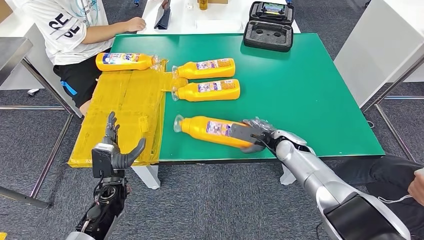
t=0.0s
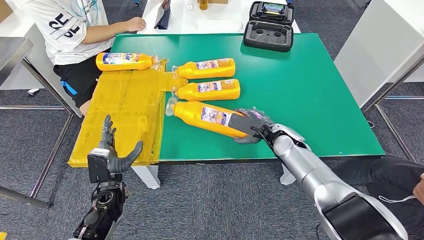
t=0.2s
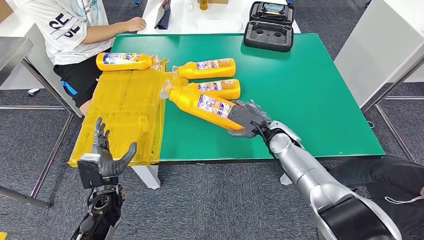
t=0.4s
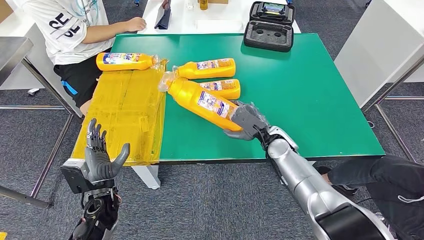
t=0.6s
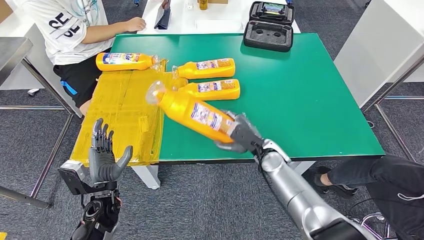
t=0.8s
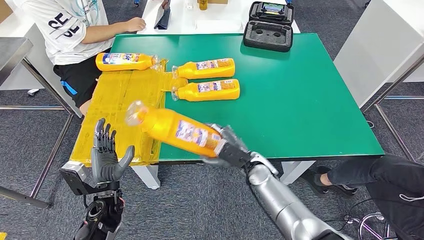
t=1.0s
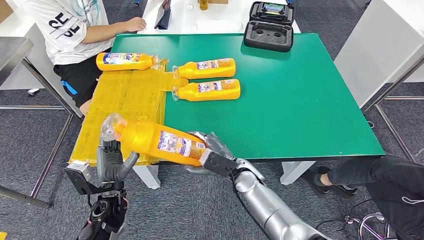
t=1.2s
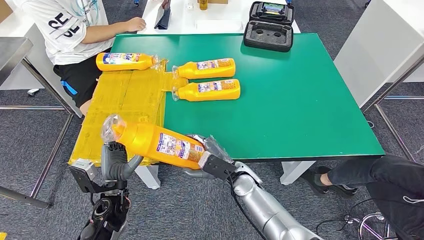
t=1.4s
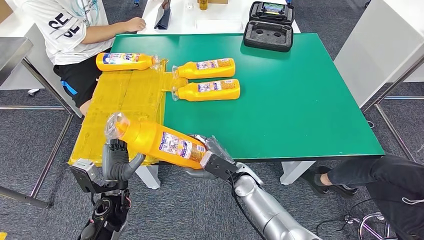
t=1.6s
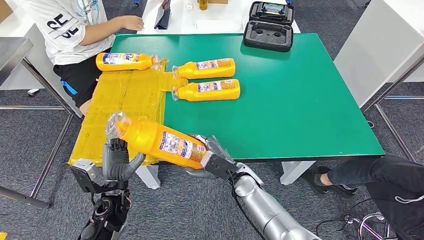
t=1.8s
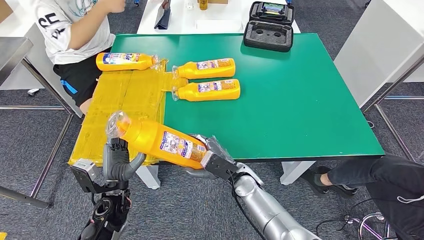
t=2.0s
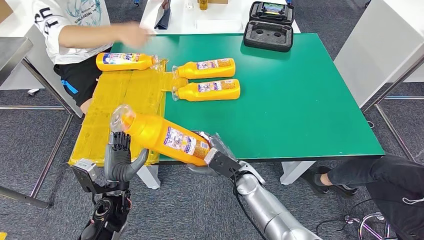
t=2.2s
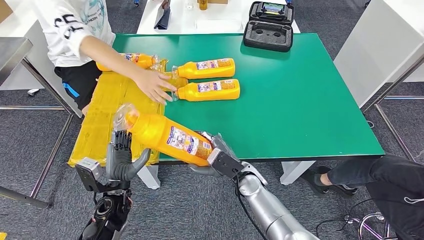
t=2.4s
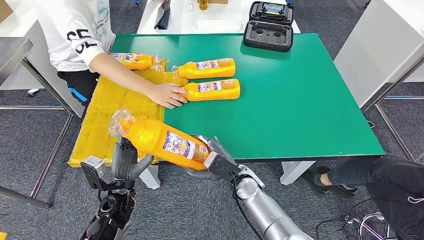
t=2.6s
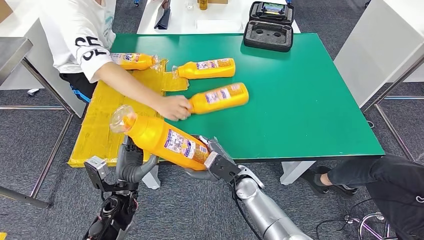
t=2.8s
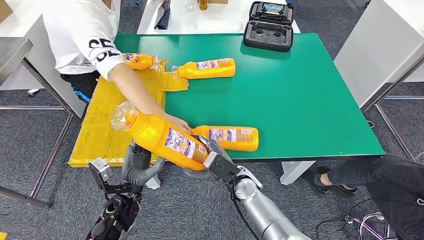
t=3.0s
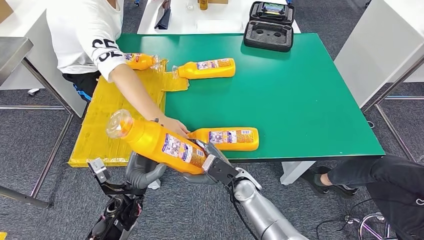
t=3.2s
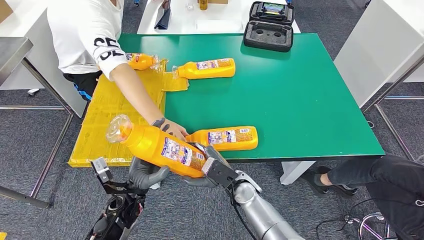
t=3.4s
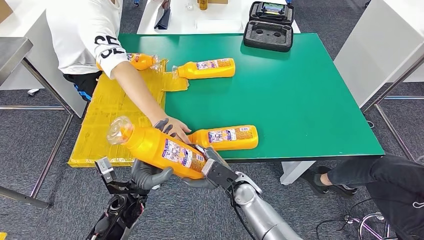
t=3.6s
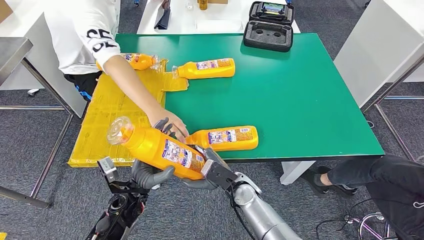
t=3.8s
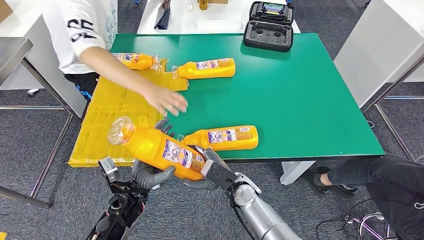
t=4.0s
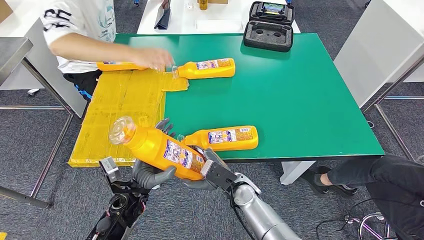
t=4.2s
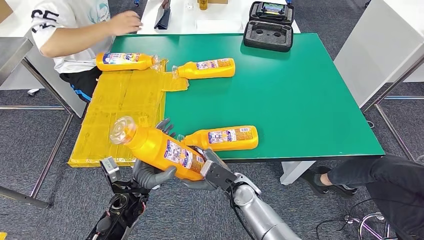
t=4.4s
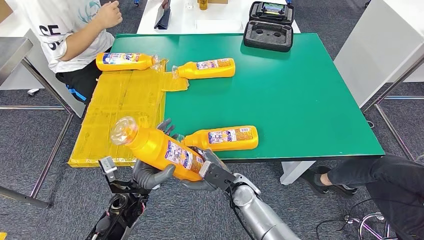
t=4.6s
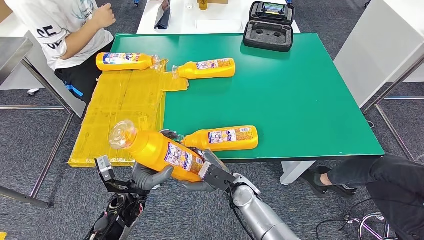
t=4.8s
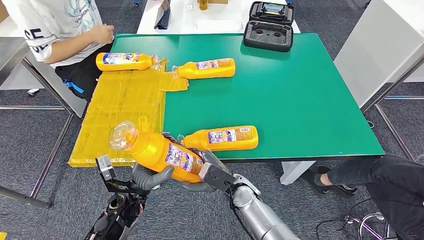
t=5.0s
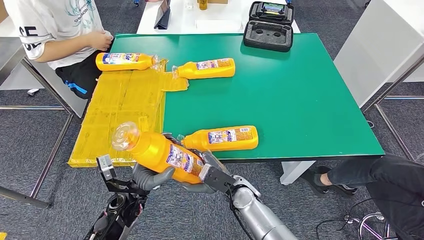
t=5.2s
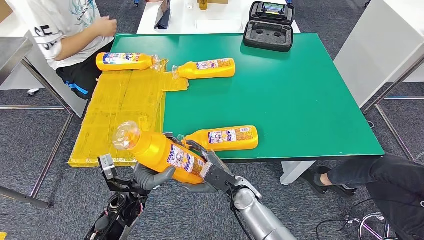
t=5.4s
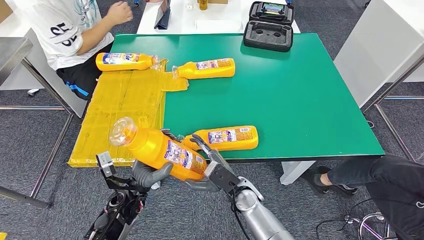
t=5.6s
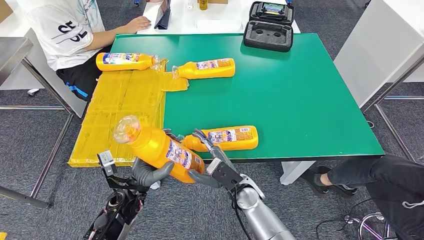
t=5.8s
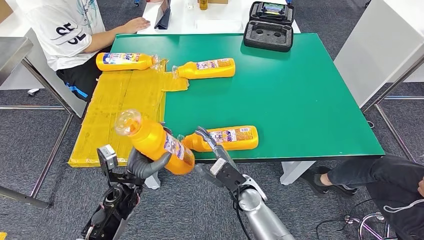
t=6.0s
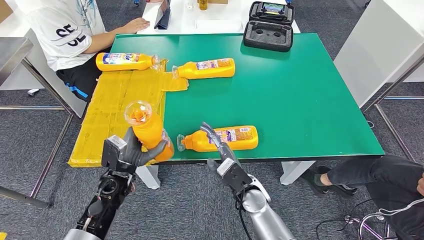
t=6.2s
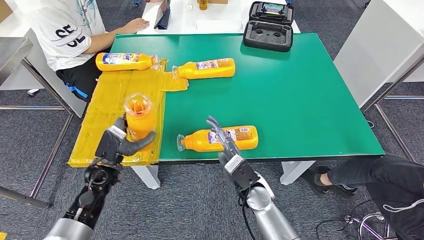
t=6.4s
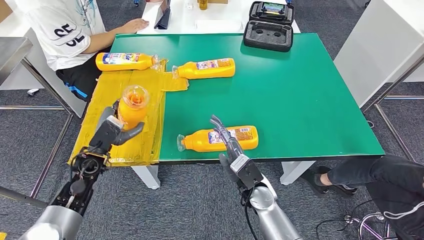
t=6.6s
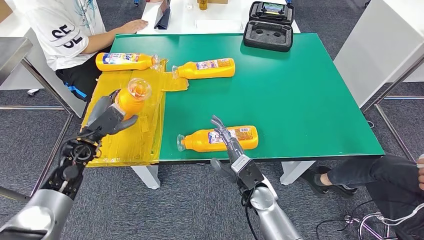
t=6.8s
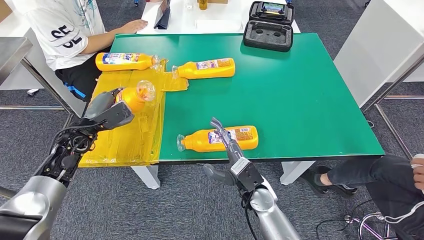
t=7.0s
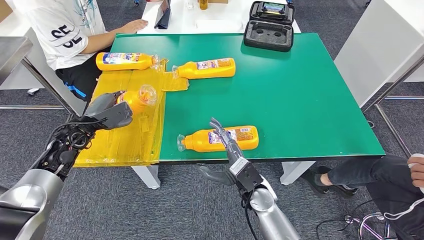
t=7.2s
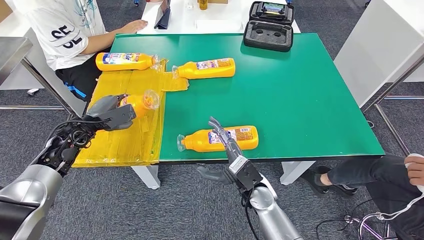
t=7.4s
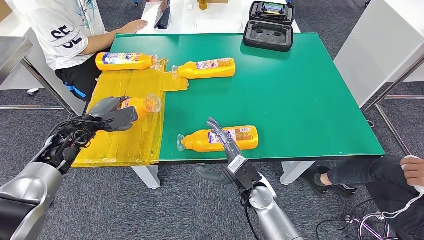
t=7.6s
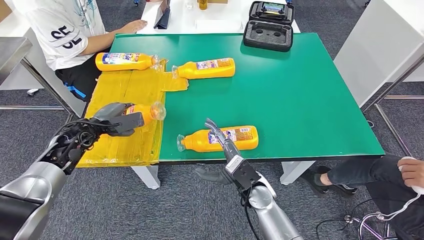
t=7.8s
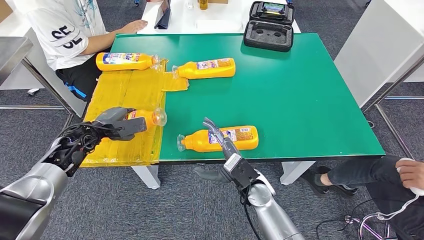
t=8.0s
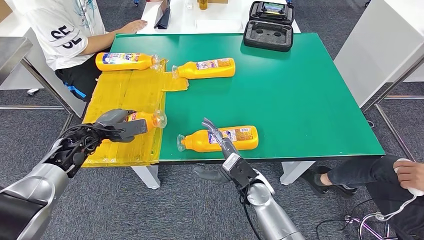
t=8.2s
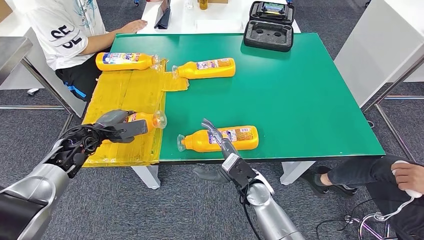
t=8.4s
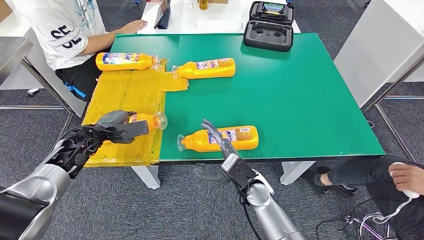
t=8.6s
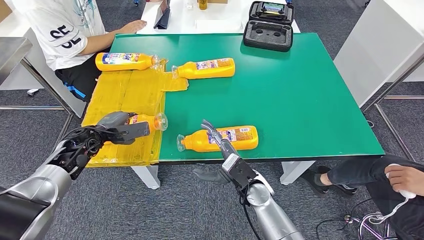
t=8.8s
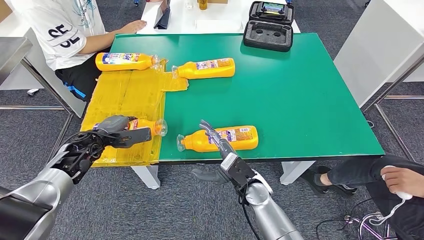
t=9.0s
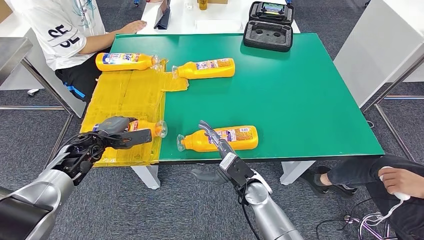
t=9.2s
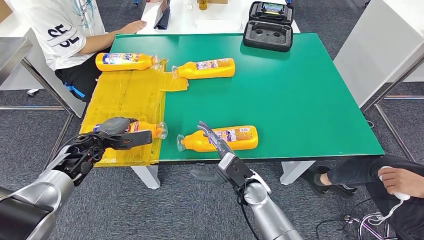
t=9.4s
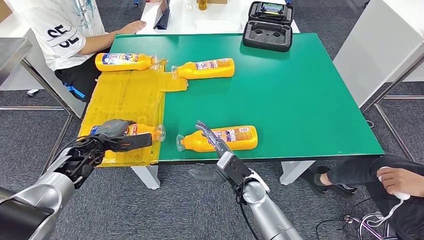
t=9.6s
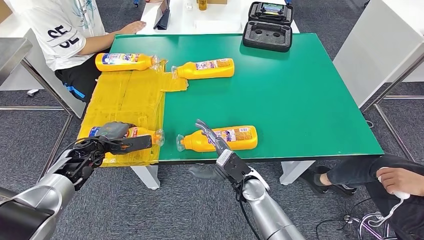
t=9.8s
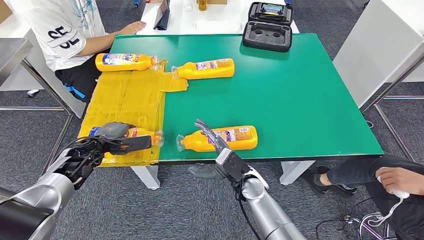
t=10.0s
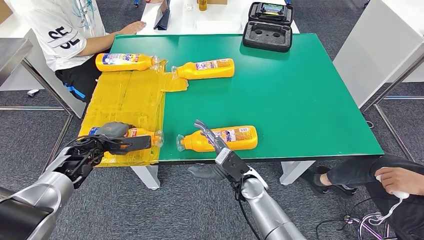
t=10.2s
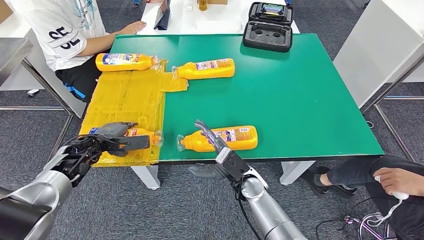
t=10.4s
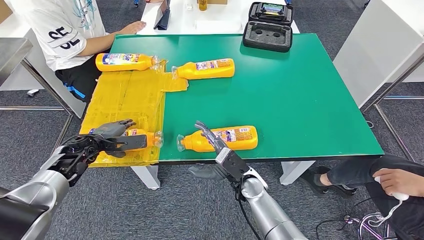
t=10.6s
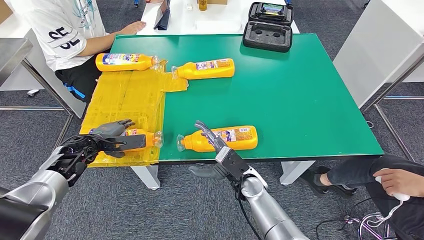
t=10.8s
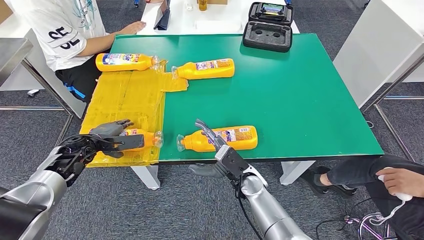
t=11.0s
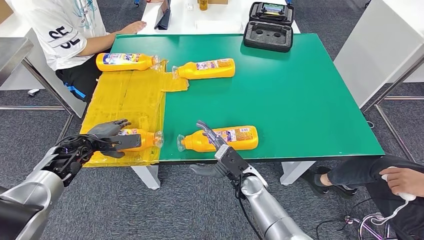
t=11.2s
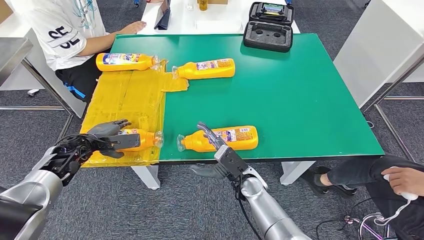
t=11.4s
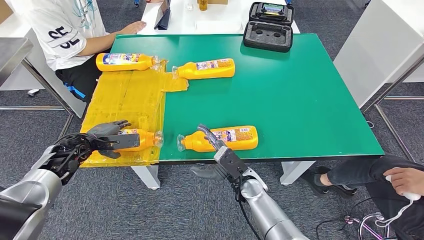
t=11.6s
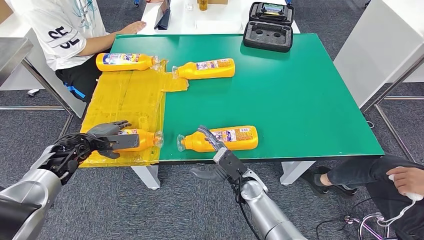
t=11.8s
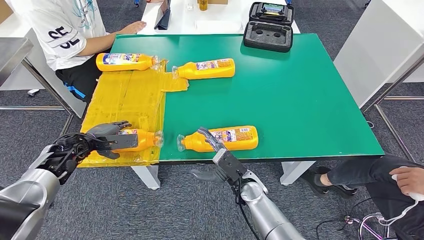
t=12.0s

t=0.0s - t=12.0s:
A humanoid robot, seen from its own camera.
Step, t=0.6s - t=10.6s: Flip the bottle to face forward.
t=0.0s - t=1.6s: The right hand moves to the left and backward, about 15 cm.
t=1.6s - t=3.0s: The hands stay close to where they were, moving slightly.
t=3.0s - t=4.4s: The hands make only small movements.
t=4.4s - t=6.0s: The hands make only small movements.
t=6.0s - t=7.6s: The left hand heads to the left, forward and upward, covering approximately 20 cm.
t=7.6s - t=9.0s: The hands move only a little.
t=9.0s - t=12.0s: The hands move only a little.

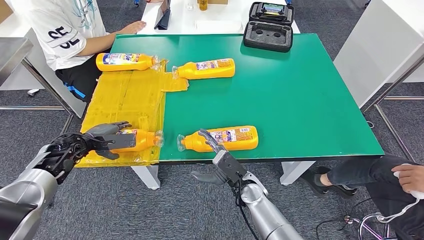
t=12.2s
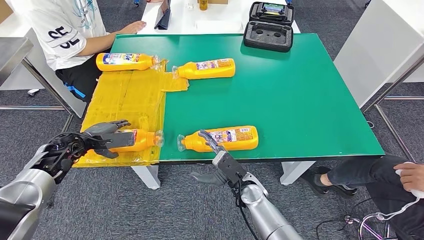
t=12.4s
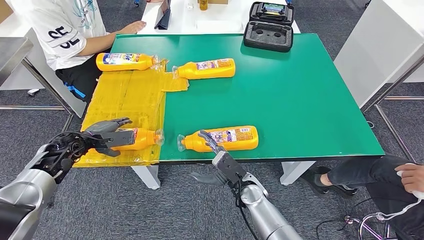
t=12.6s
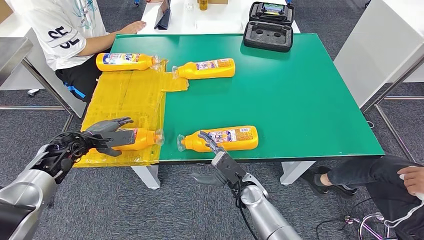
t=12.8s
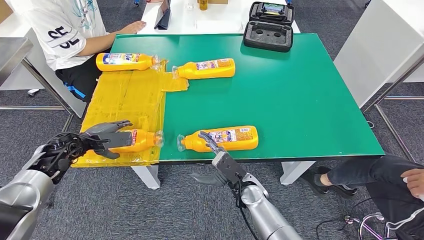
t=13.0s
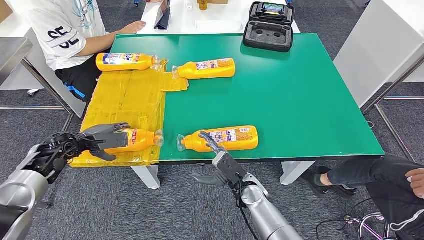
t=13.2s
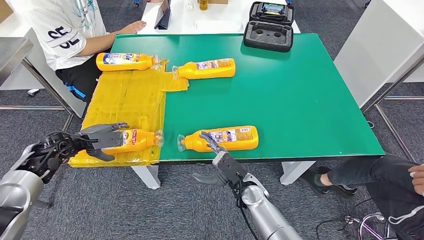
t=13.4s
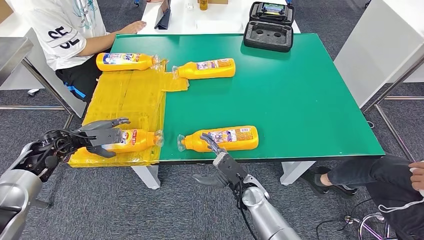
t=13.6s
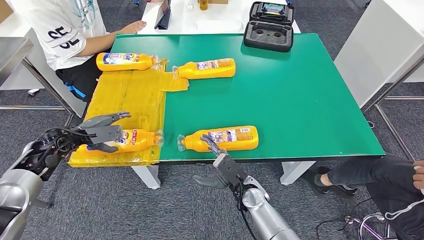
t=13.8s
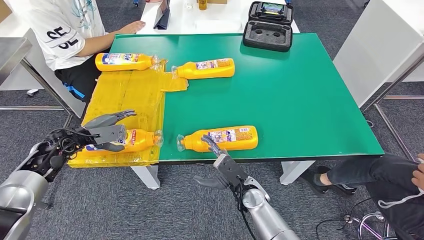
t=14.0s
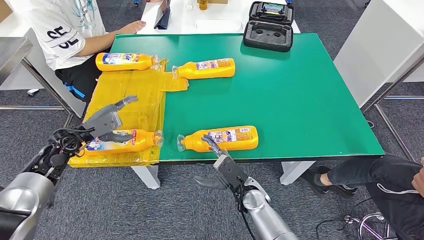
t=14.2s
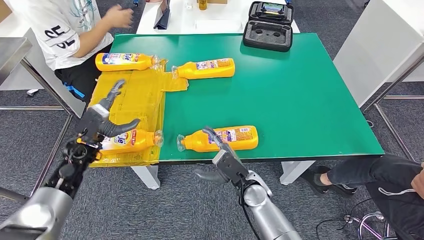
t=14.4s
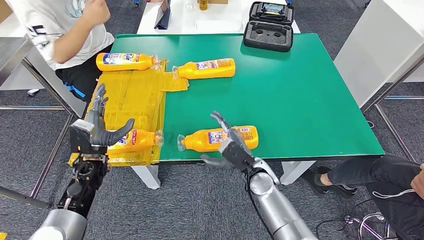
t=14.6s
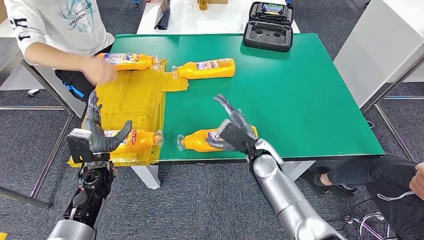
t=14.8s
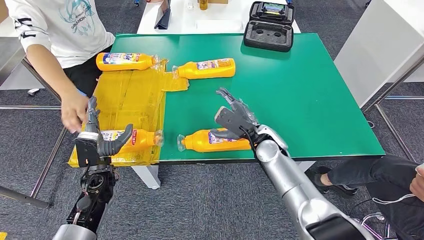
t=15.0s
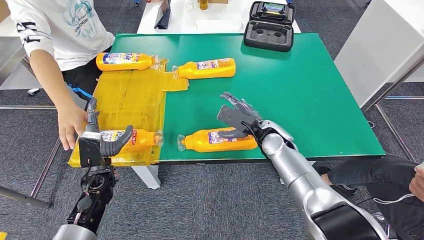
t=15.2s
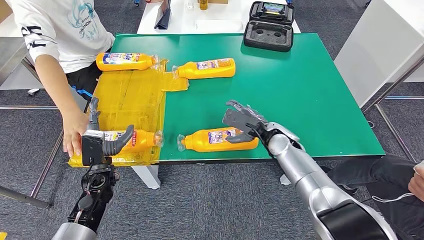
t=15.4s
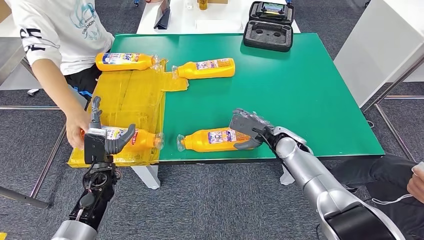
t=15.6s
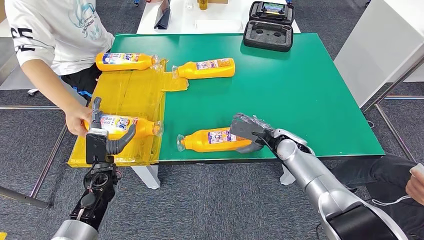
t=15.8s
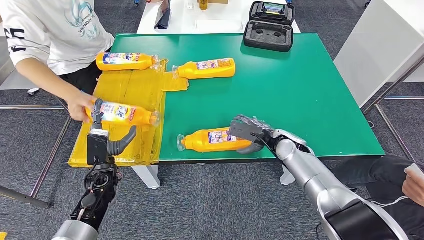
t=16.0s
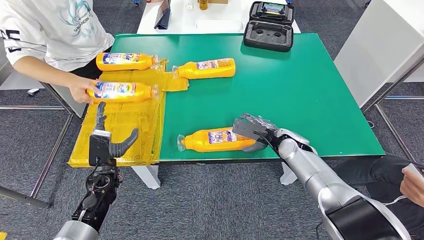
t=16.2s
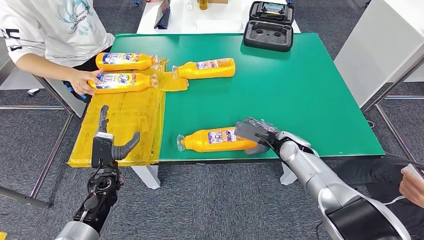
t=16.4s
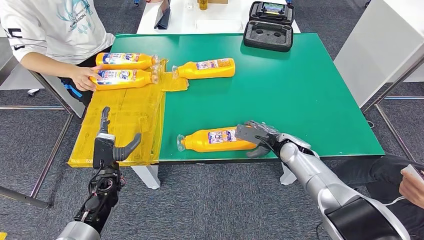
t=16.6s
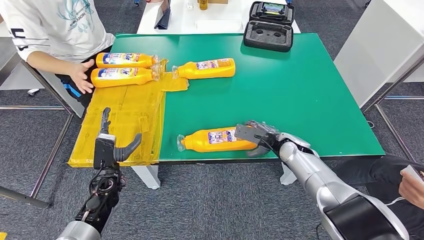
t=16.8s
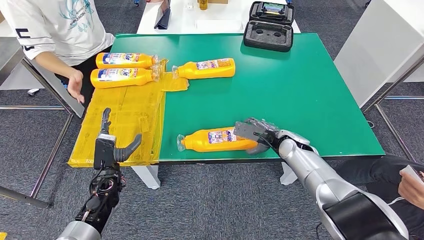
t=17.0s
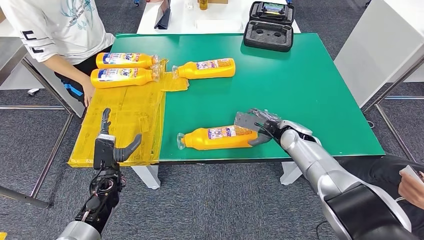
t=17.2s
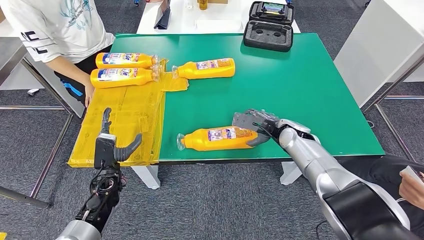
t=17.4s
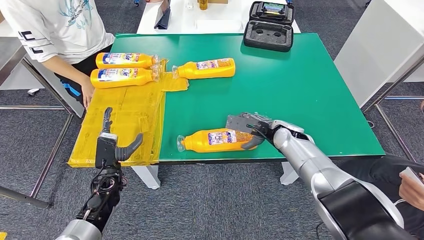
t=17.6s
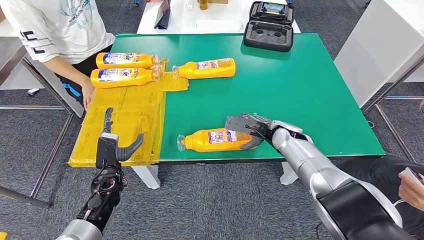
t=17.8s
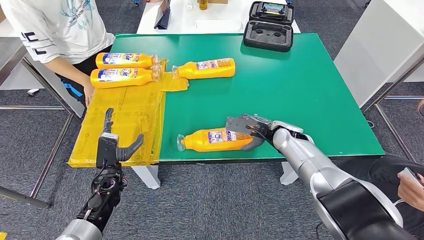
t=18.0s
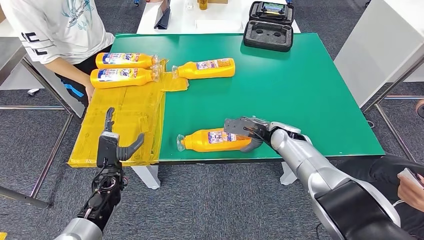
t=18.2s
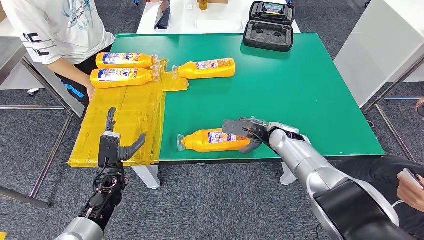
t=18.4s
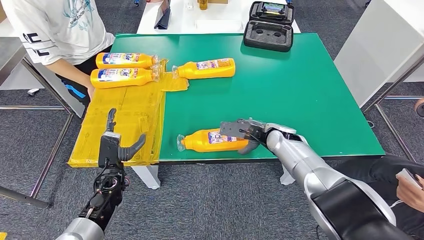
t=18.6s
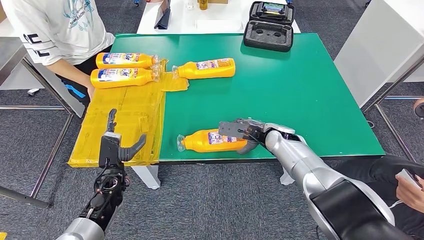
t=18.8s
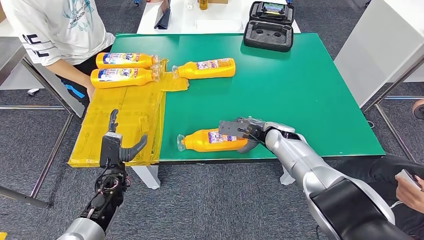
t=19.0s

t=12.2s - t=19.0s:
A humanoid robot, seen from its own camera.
t=12.2s - t=13.6s: The hands stay close to where they were, moving slightly.
t=15.0s - t=16.2s: The right hand heads to the right, covering some 10 cm.
t=16.2s - t=19.0s: There are only small adjustments of the hands.
